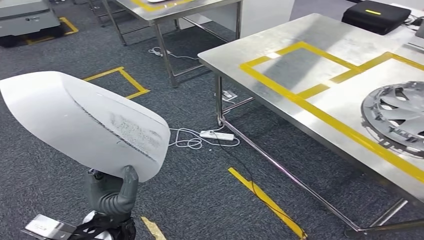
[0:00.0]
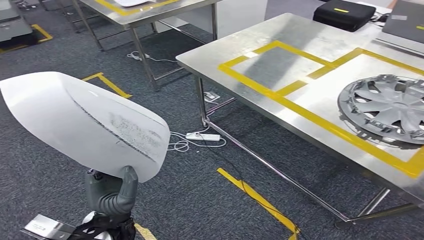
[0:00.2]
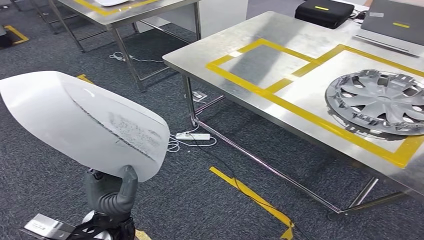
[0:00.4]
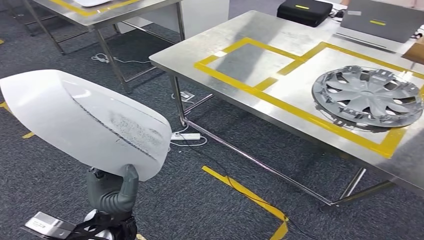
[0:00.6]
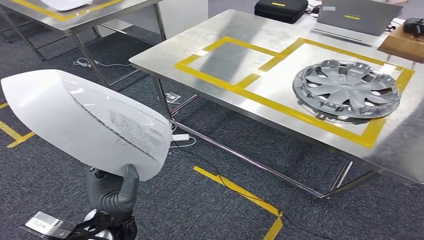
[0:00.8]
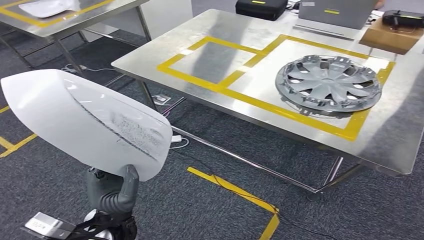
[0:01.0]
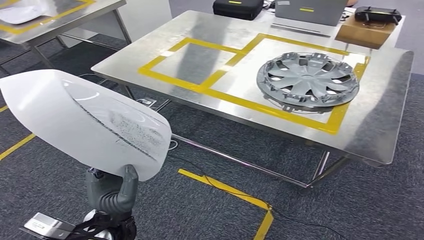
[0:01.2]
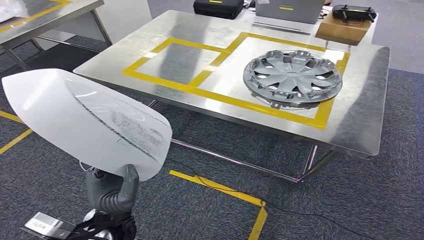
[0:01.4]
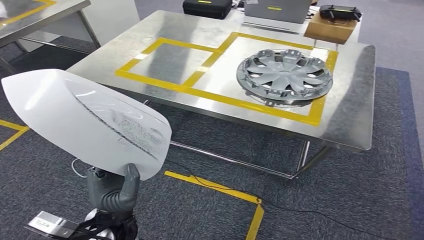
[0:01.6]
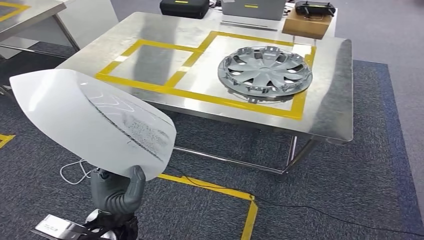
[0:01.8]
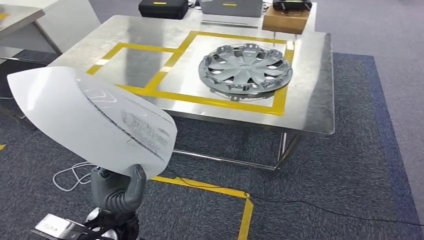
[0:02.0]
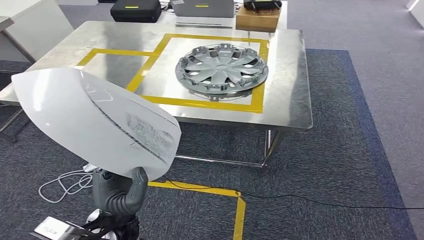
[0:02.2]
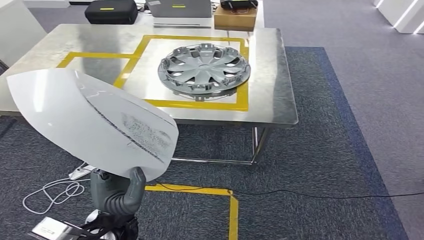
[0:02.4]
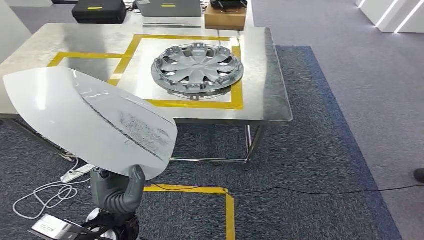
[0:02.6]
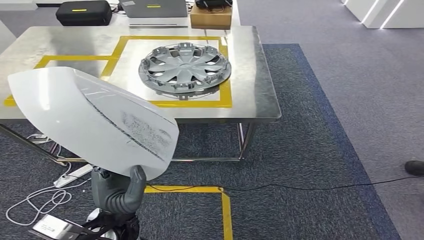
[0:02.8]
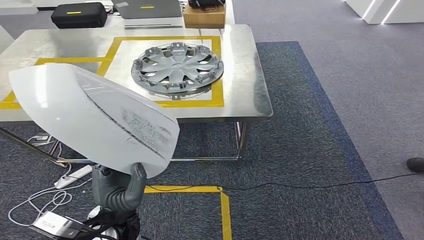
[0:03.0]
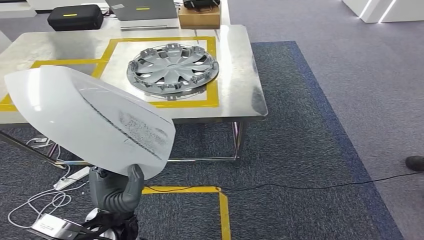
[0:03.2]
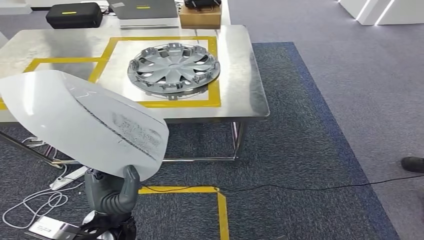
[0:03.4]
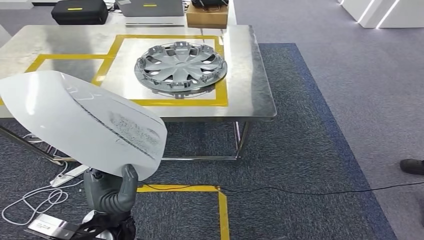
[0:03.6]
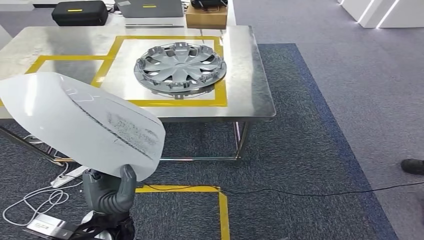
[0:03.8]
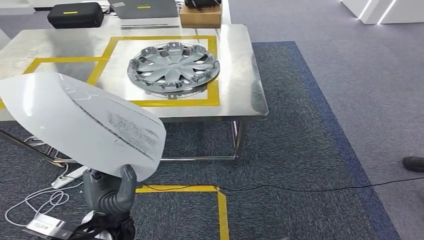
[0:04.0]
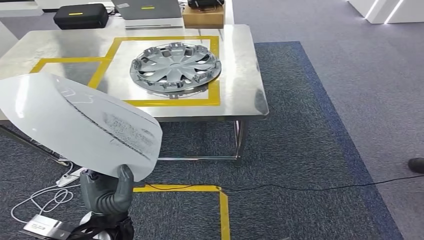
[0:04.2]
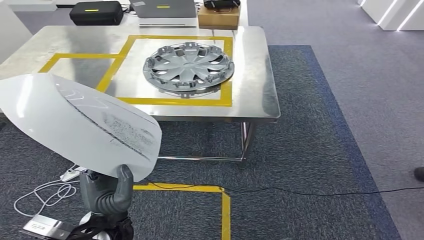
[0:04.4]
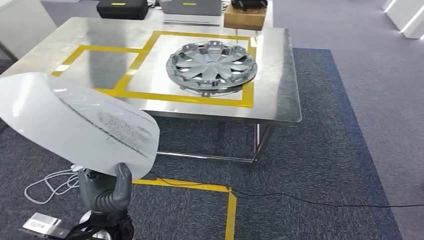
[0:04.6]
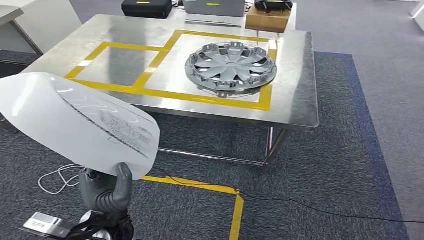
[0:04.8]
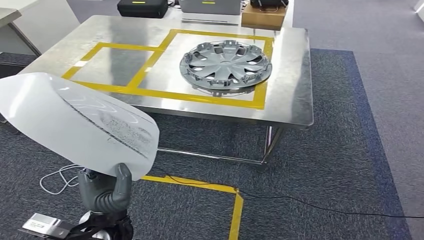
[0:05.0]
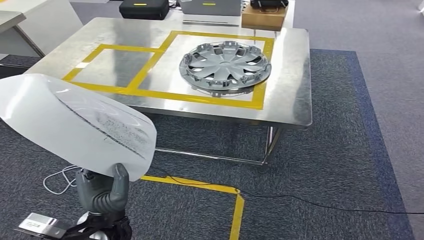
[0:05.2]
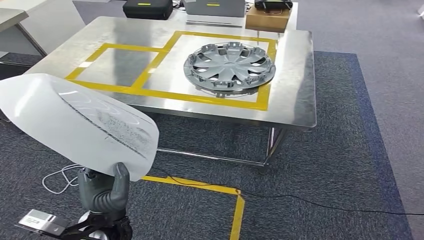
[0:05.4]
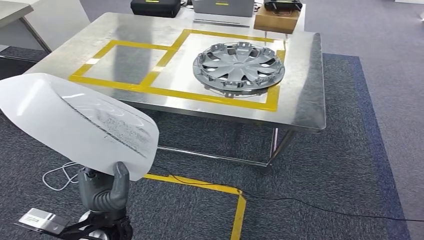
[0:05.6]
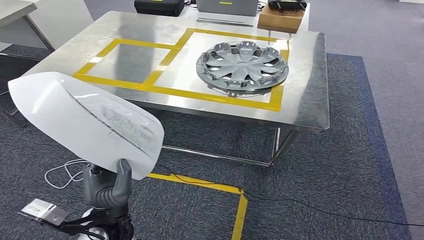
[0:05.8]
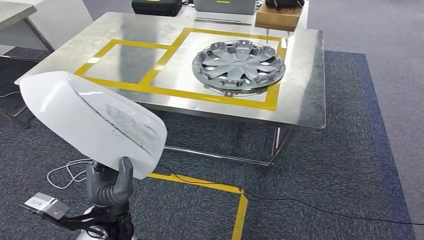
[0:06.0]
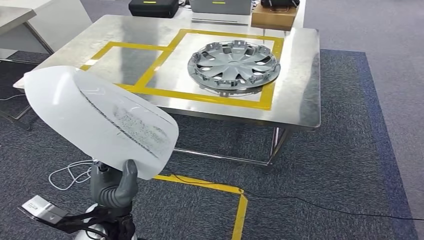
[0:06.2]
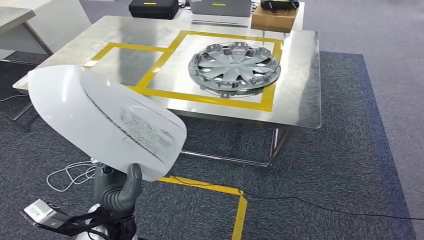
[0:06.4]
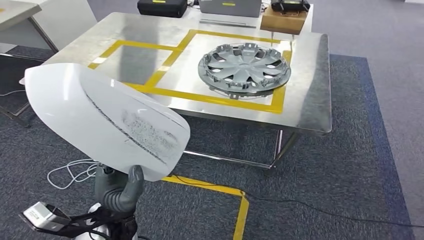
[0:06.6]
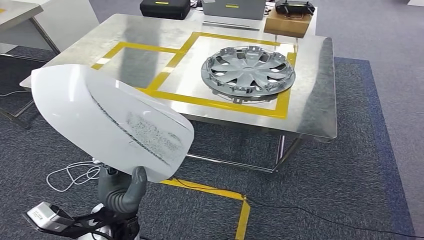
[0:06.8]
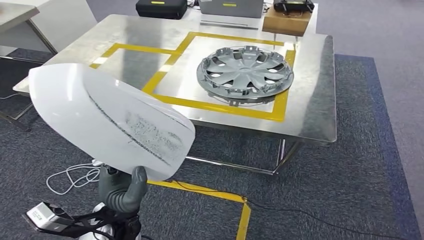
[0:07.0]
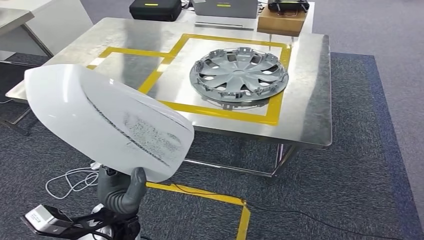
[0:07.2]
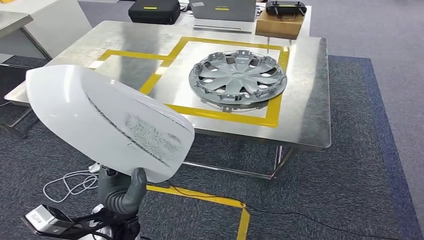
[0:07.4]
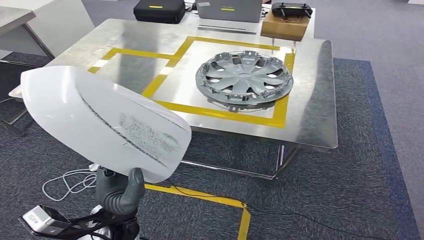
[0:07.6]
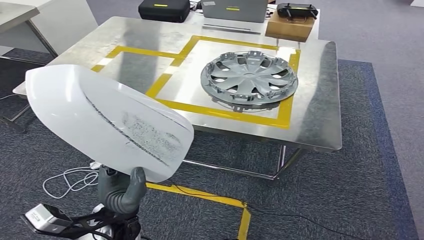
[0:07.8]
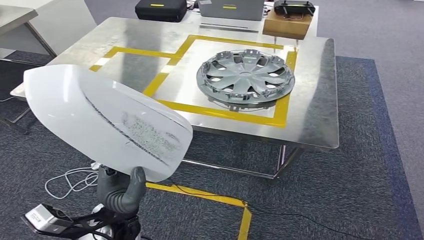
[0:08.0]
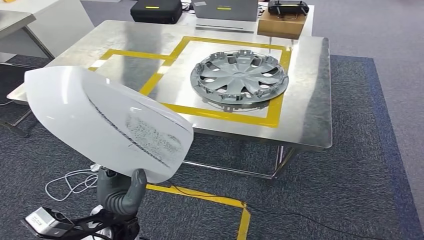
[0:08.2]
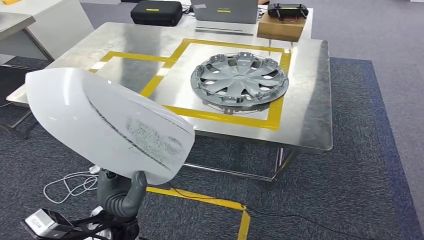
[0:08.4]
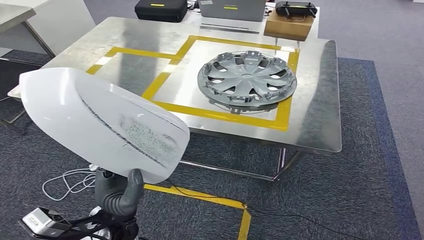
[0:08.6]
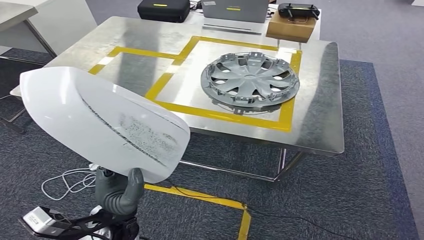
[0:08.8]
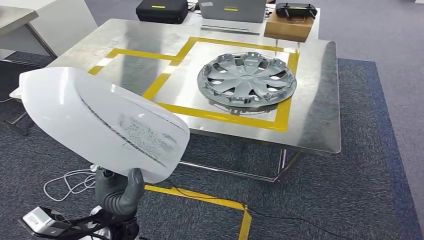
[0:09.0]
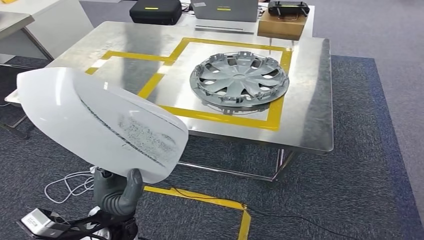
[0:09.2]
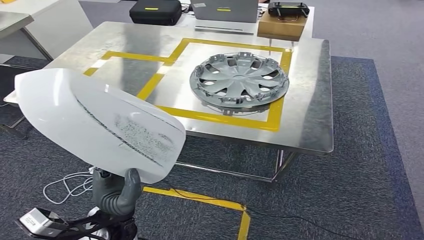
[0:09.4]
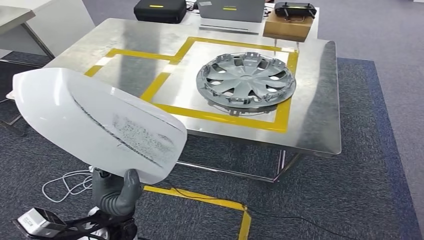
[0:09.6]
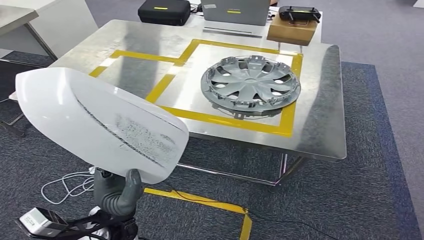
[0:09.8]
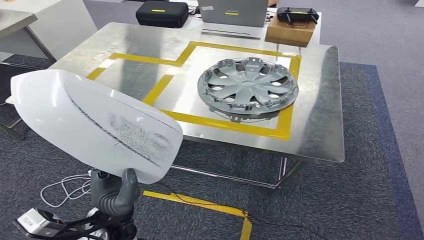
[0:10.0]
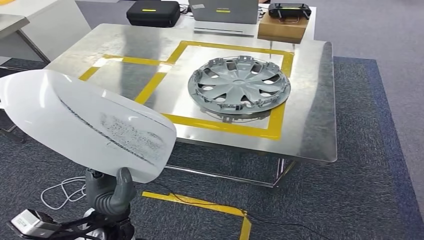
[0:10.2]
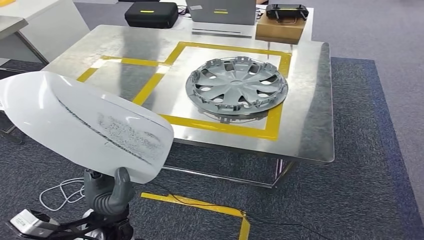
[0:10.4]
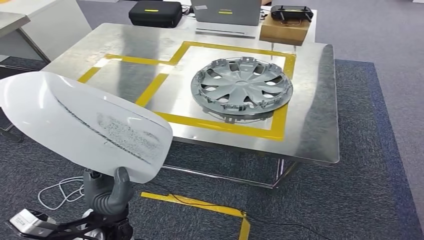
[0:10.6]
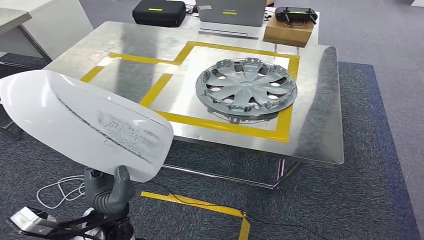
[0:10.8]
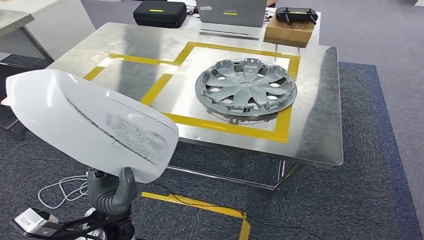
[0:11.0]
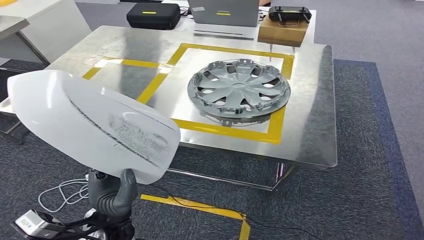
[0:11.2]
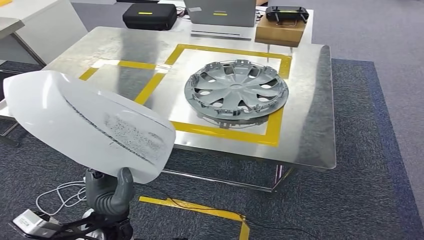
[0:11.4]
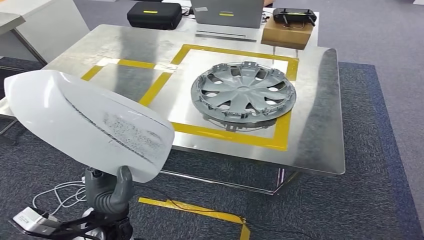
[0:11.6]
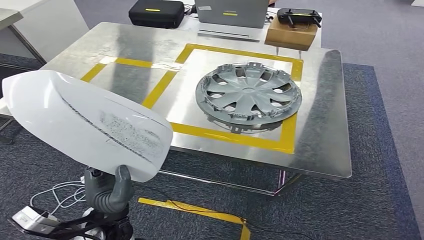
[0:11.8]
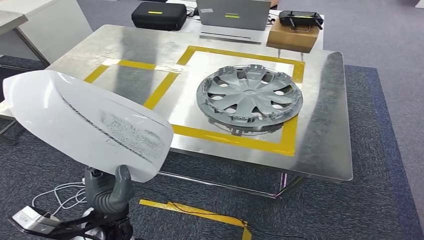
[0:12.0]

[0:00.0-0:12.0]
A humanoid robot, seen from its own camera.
Step, 0:00.0 to 0:10.8: Move the small component to the workbench.
0:07.6 to 0:09.0: Neither hand changes place.

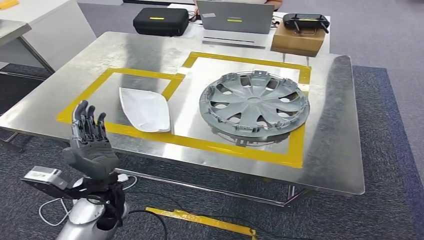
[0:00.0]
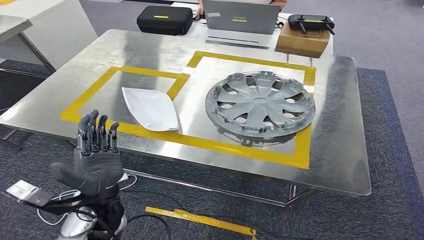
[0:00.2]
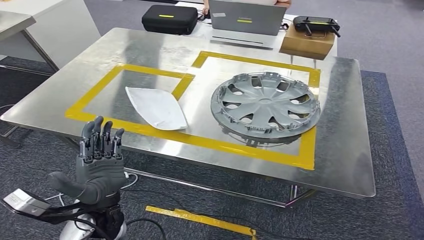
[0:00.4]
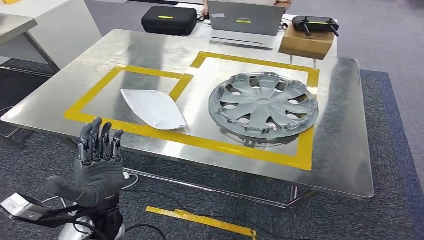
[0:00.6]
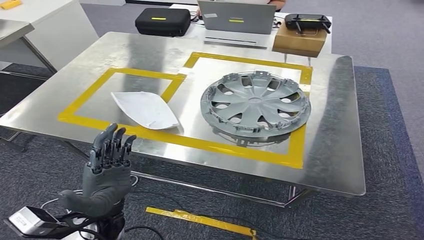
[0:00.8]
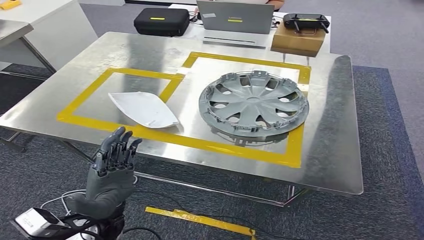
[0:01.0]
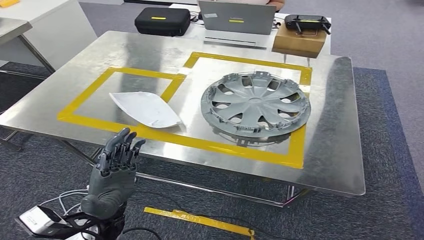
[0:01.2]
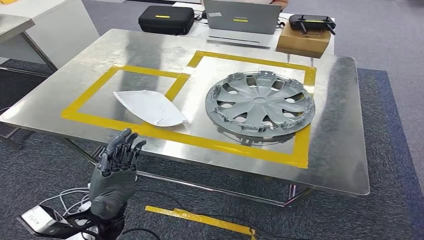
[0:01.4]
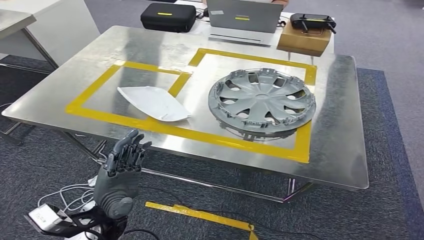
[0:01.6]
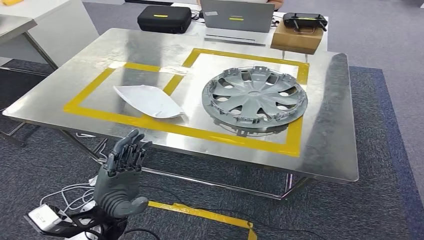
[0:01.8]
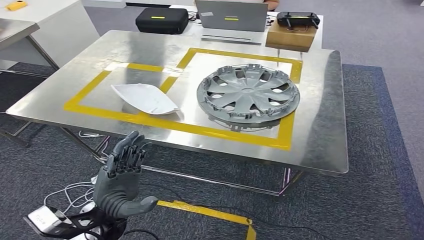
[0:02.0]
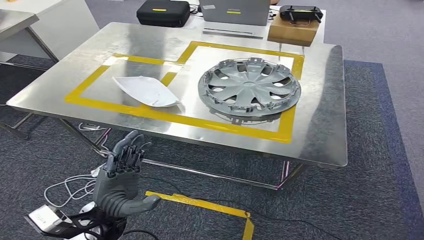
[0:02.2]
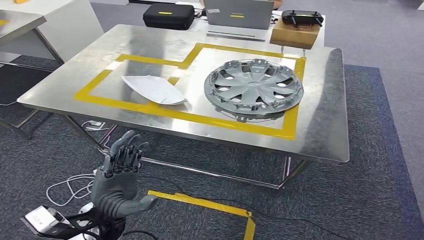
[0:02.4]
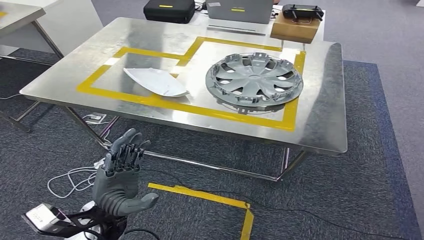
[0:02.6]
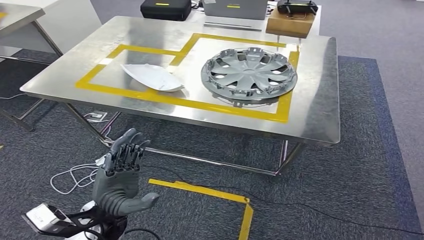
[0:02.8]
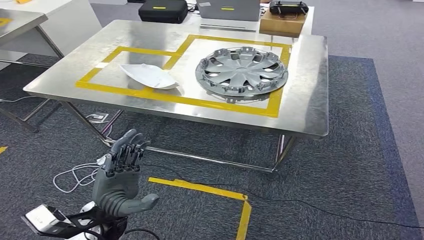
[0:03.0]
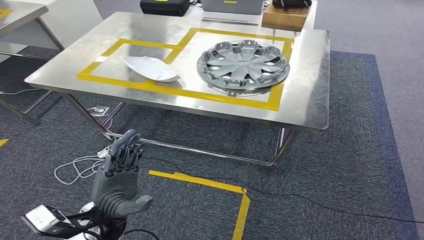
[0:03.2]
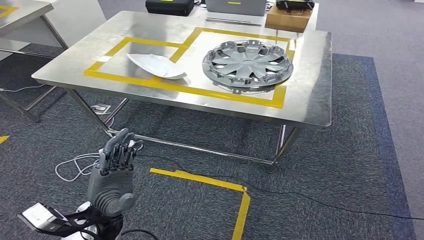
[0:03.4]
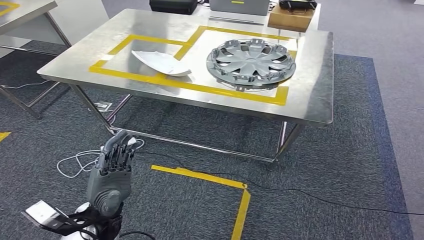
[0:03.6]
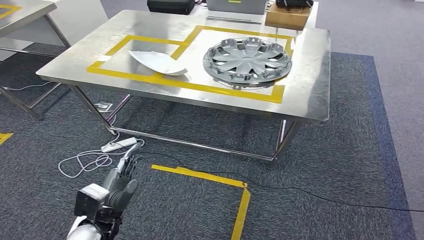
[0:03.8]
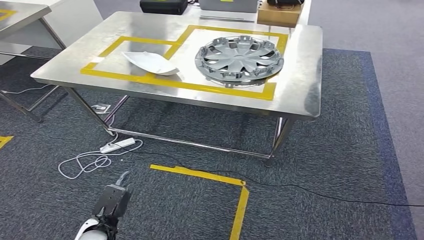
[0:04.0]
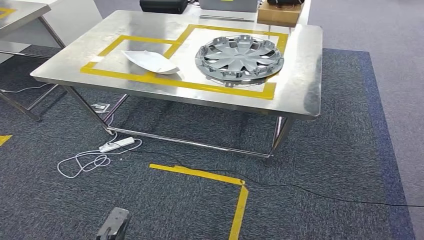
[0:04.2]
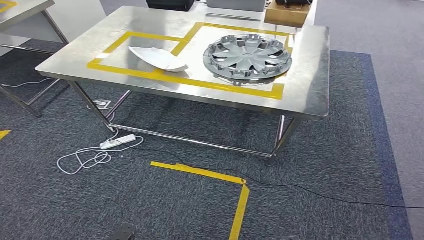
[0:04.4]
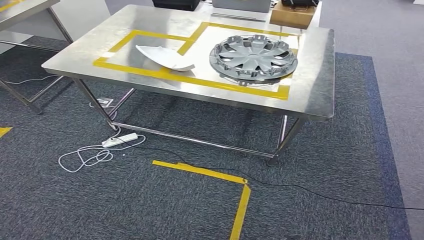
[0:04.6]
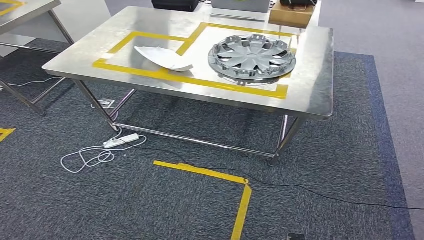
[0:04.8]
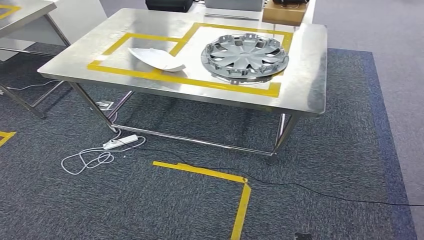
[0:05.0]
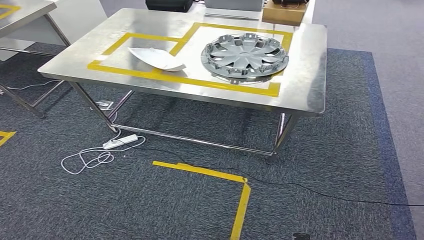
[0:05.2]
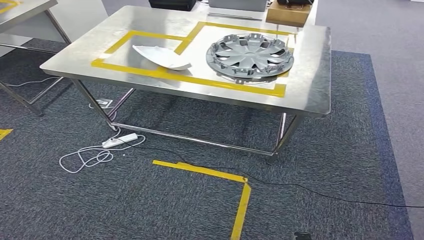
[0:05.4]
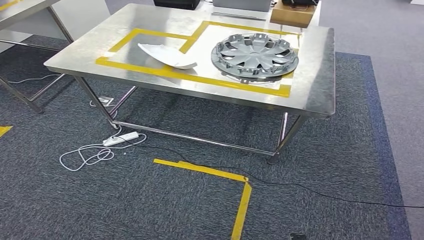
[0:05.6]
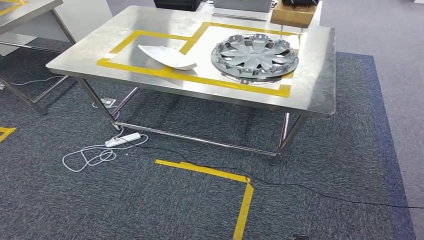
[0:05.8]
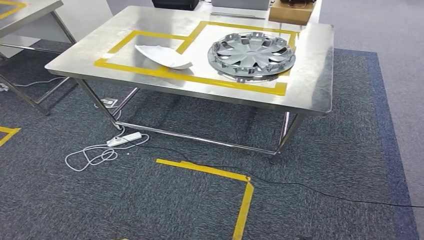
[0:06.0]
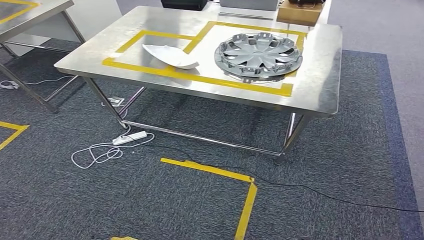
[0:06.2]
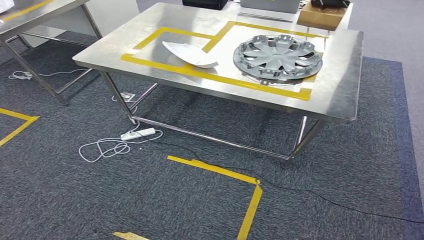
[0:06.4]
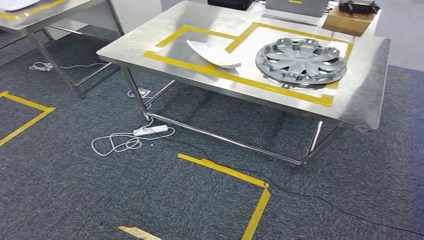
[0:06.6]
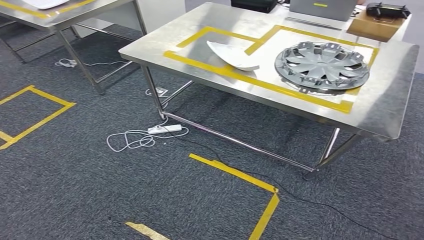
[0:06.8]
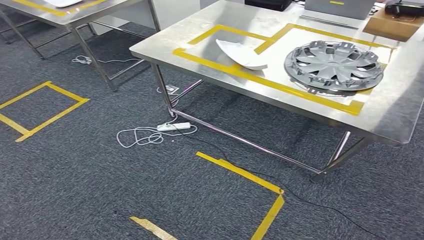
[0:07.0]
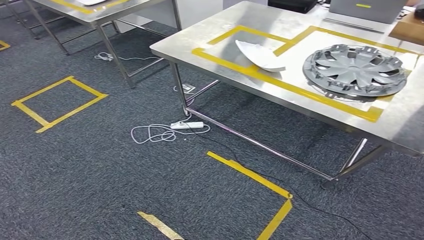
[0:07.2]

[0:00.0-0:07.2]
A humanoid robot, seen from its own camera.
0:04.4 to 0:05.8: The left hand shifts by approximately 5 cm.
